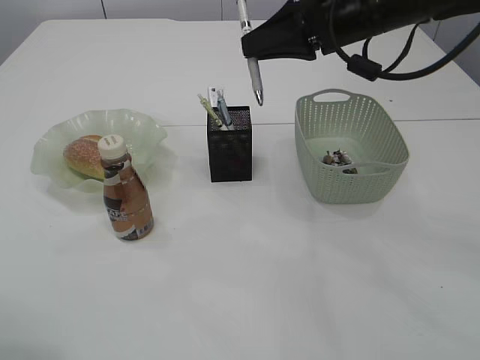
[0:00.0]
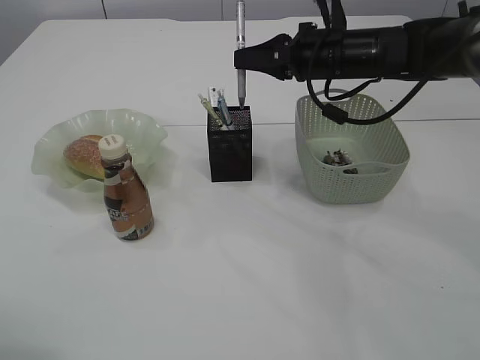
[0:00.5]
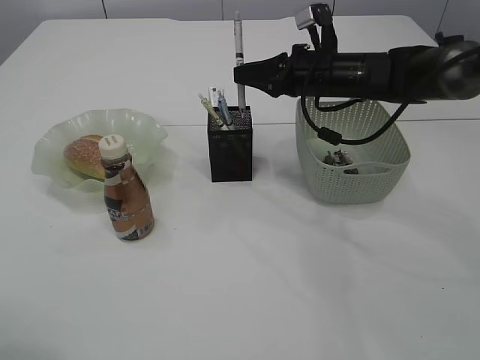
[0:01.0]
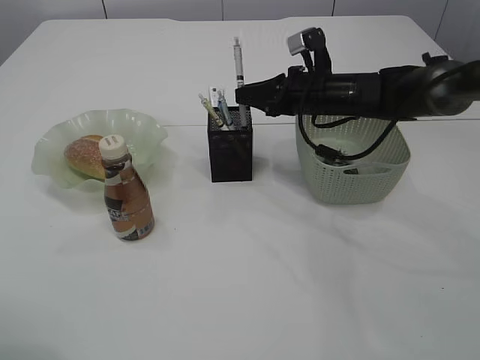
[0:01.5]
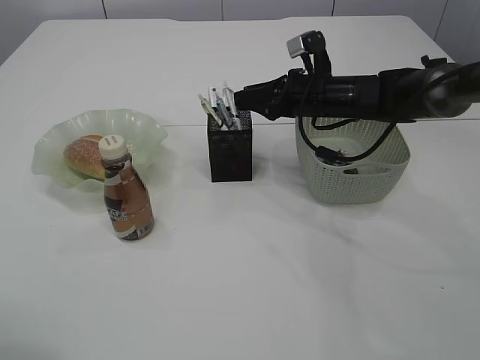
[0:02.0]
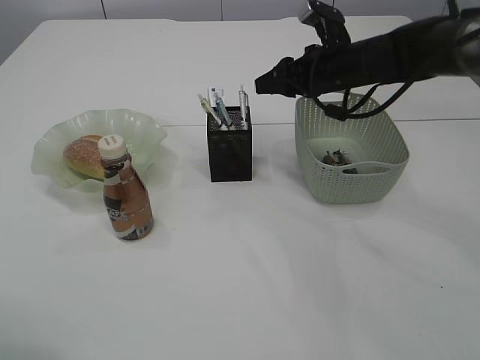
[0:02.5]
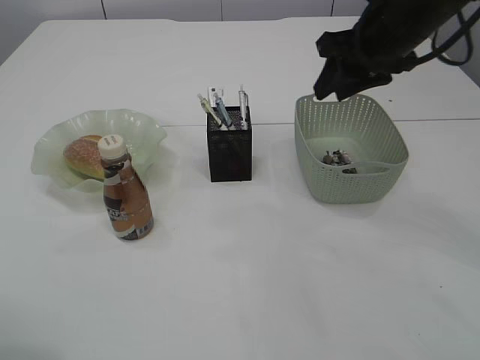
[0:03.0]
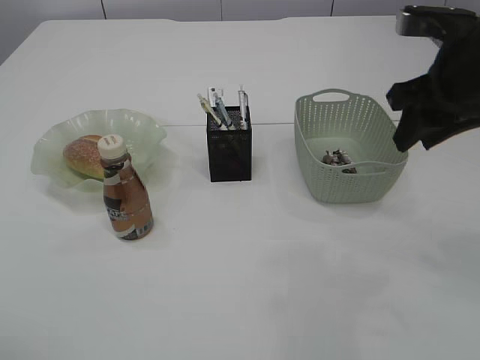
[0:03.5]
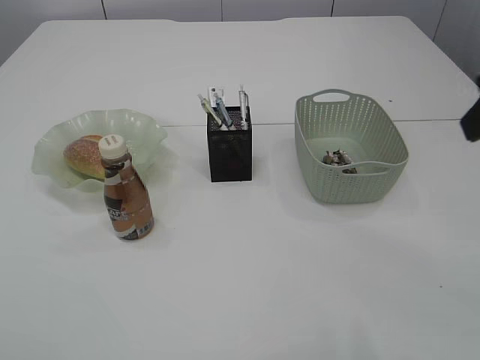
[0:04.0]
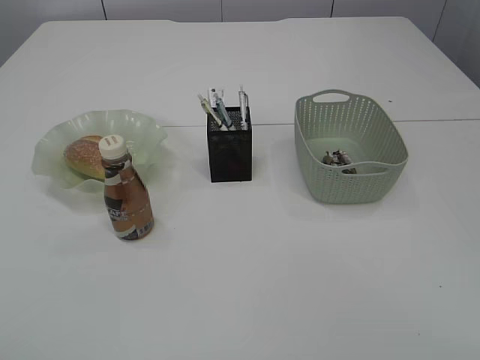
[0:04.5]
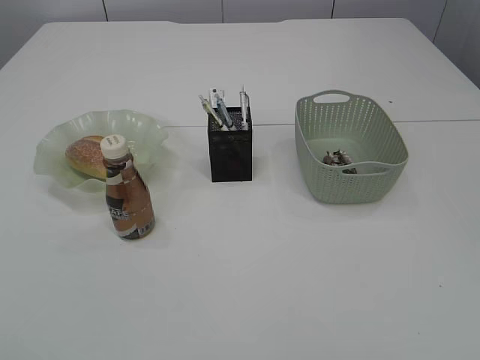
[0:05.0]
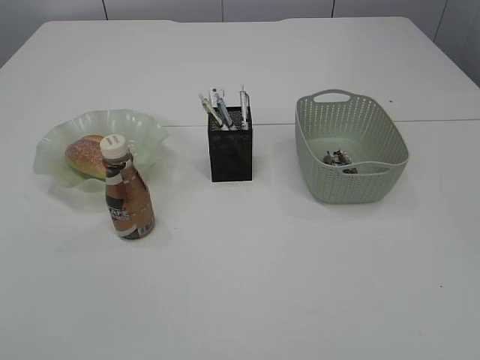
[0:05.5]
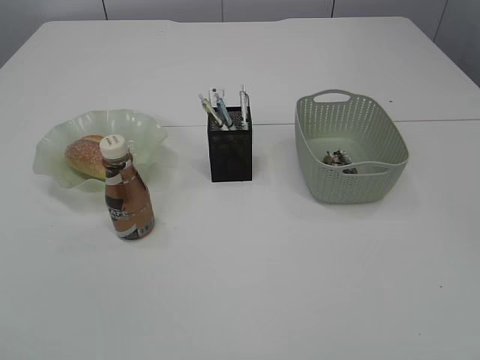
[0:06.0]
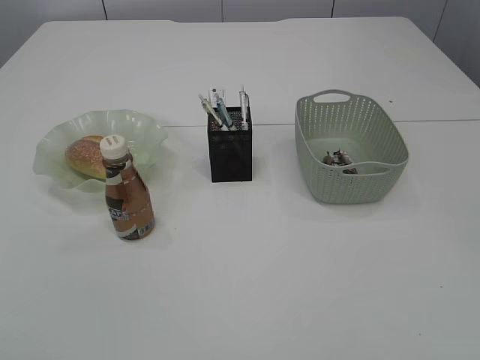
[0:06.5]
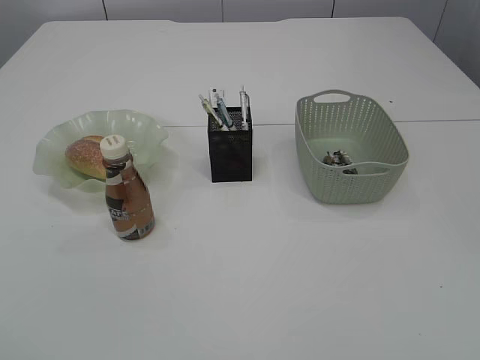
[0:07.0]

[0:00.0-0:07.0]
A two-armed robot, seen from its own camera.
Step, 0.0 to 2.0 s: Place the pen into the pen holder.
0.0 to 2.0 s: The right gripper heads downward and forward, covering about 15 cm, and opens up.
2.0 to 3.5 s: The right gripper heads backward, upward and to the right, covering approximately 20 cm.
3.5 to 5.0 s: The left gripper goes some 25 cm backward; the right gripper travels backward by about 40 cm.

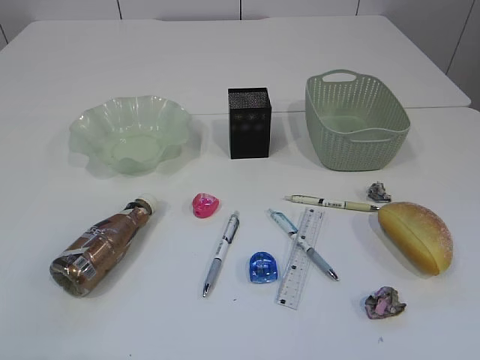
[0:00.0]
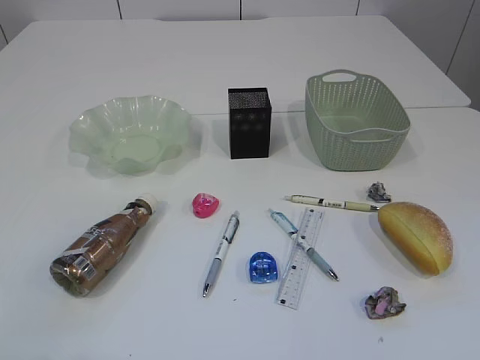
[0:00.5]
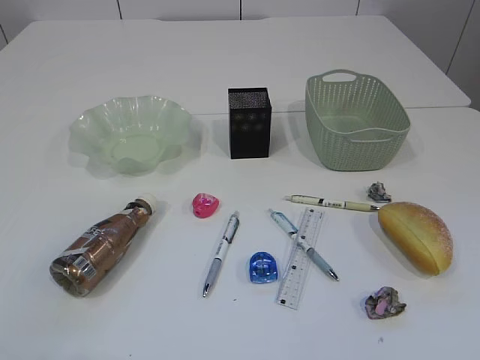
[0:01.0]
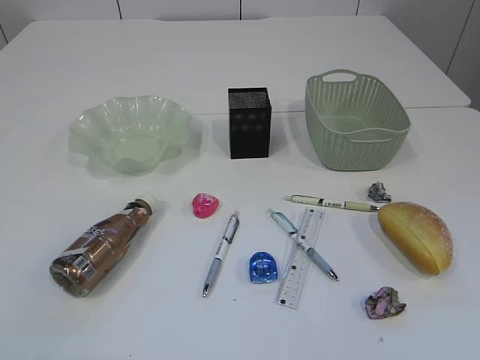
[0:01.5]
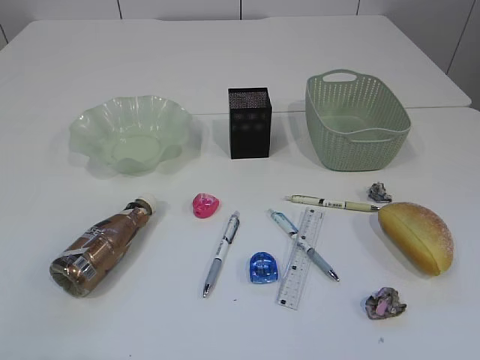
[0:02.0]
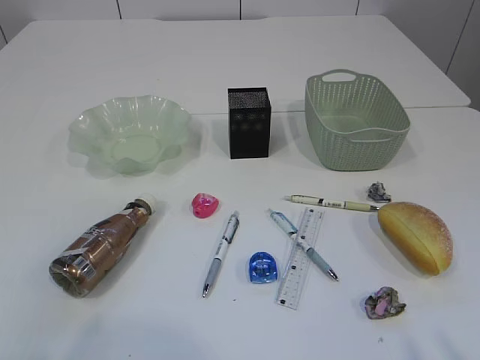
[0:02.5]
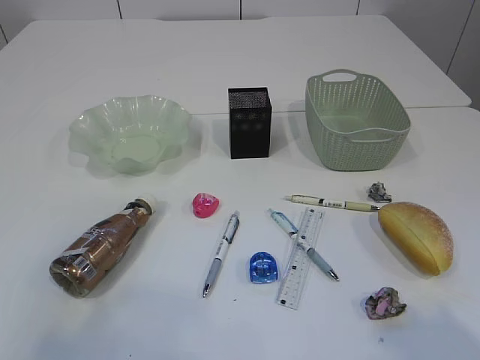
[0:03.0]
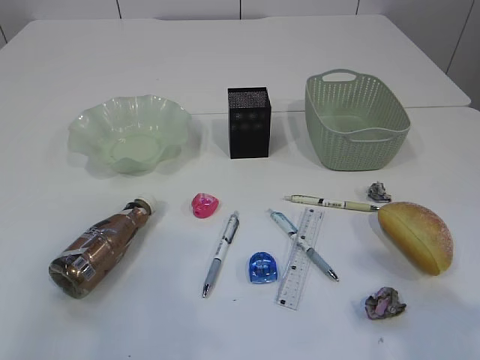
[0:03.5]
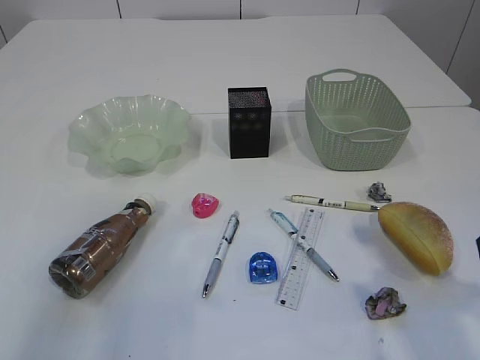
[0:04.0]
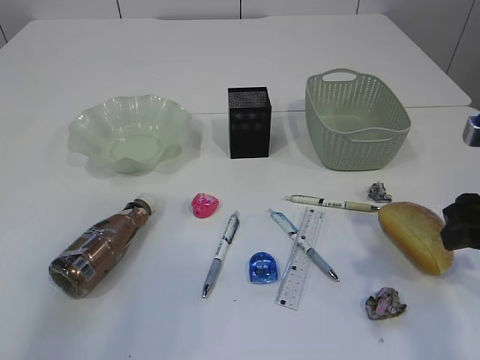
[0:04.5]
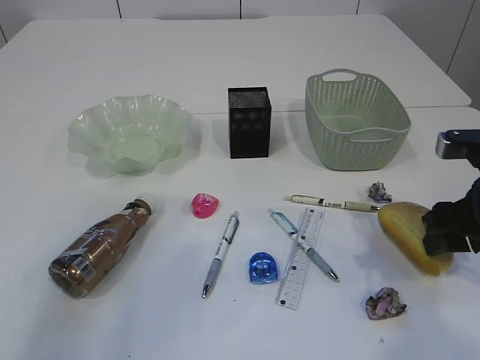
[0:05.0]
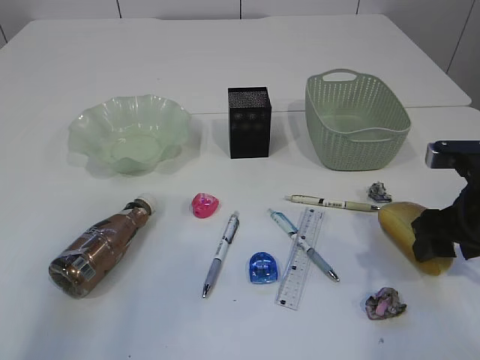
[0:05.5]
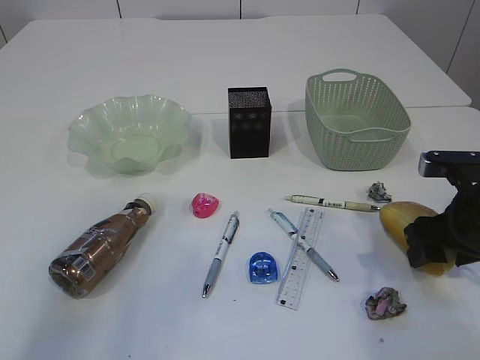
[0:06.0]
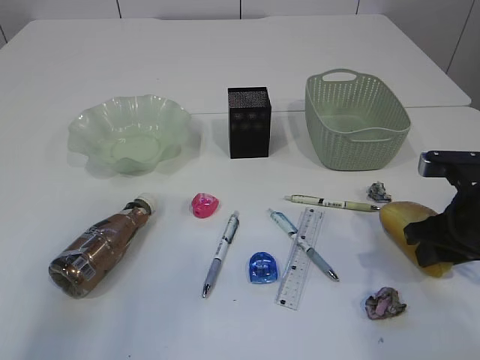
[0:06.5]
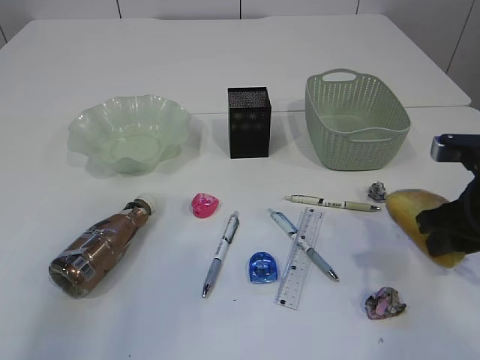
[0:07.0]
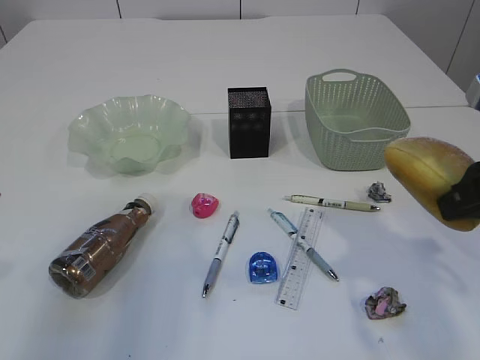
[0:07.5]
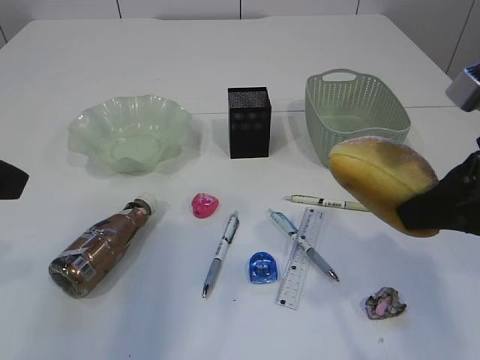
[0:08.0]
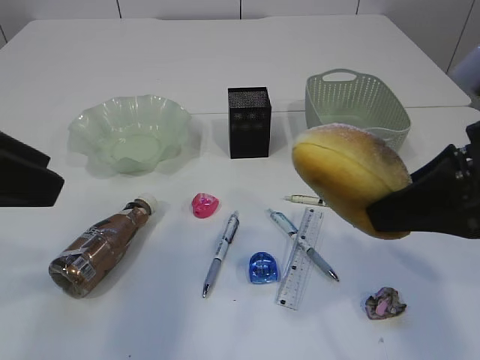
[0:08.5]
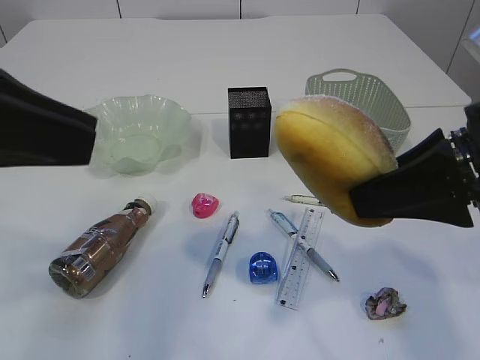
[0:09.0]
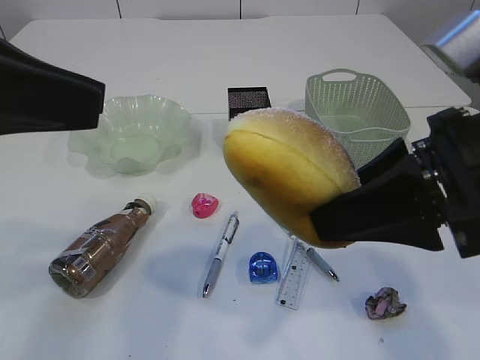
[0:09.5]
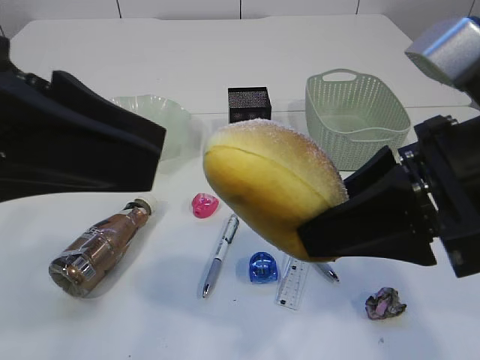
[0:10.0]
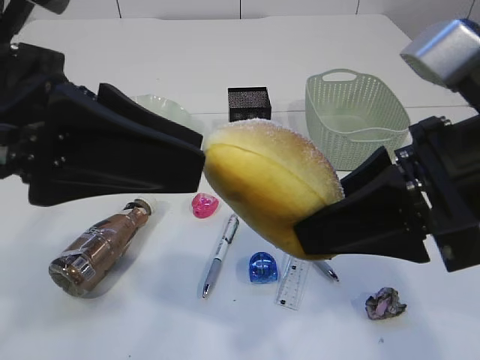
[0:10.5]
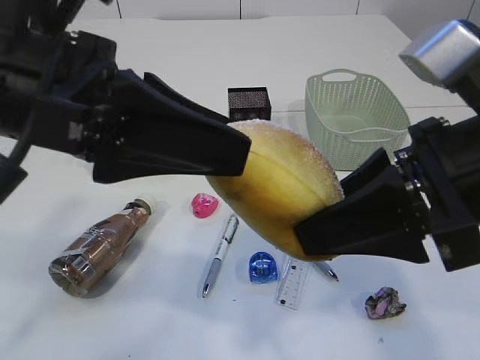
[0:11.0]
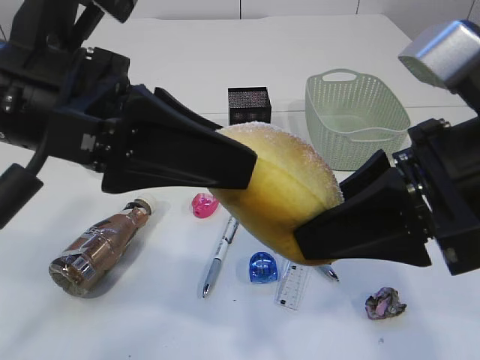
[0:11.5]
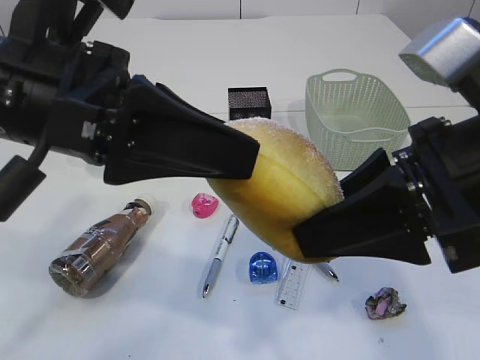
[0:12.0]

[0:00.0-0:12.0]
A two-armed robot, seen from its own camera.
2.0 to 4.0 s: The two grippers go about 20 cm forward. The right gripper opens.
4.0 to 6.0 s: The right gripper travels downward and forward by some 15 cm.
6.0 to 8.0 s: The right gripper shifts roughly 15 cm upward and backward, and closes its fingers.
8.0 to 10.0 s: The right gripper is displaced to the left by some 5 cm, while the left gripper moves to the right, some 10 cm.
10.0 to 12.0 s: The left gripper moves about 5 cm.

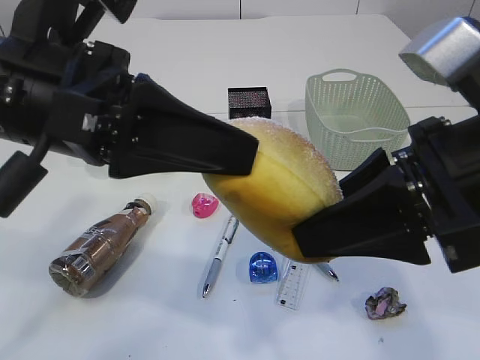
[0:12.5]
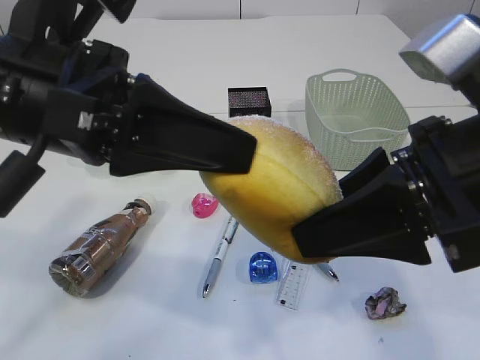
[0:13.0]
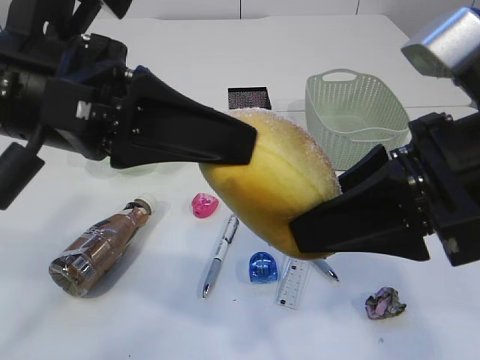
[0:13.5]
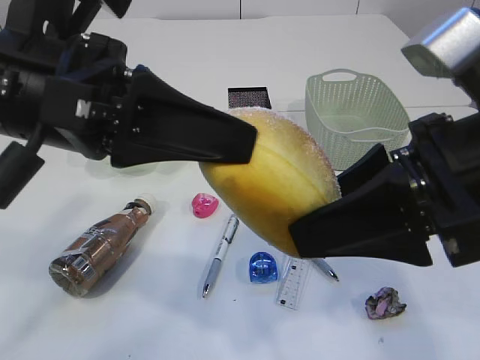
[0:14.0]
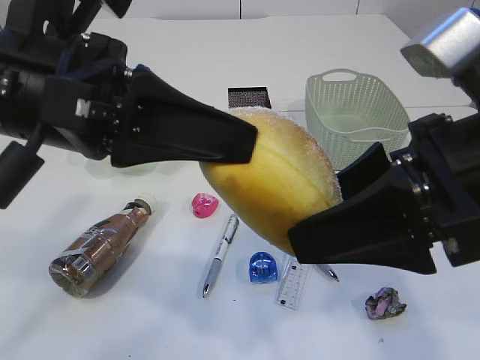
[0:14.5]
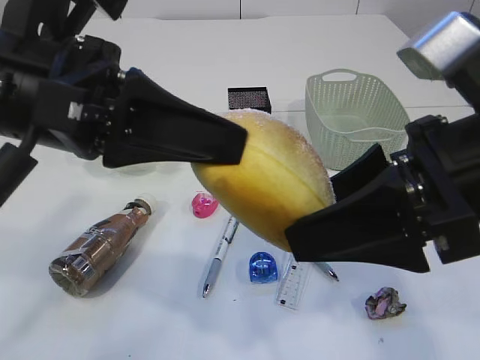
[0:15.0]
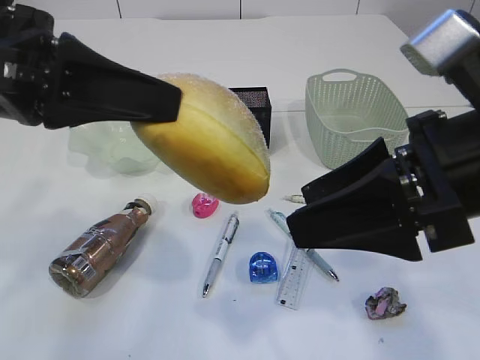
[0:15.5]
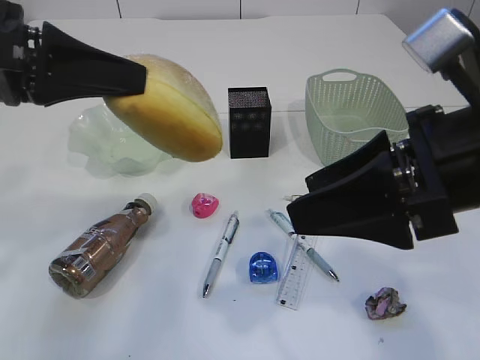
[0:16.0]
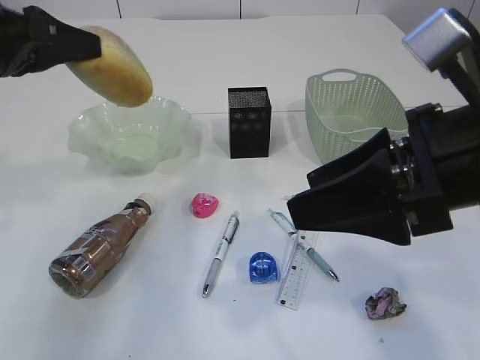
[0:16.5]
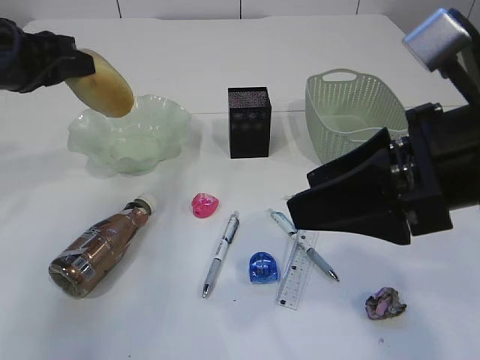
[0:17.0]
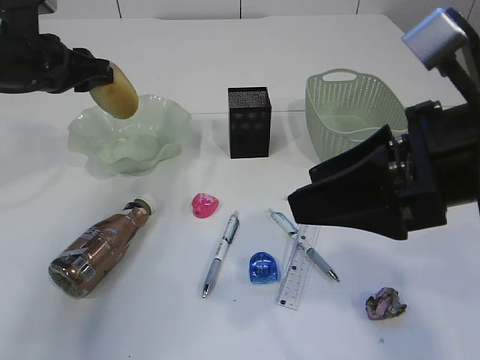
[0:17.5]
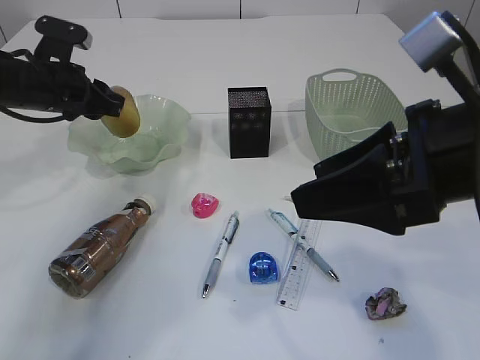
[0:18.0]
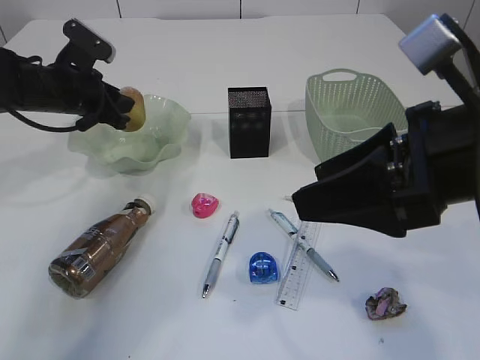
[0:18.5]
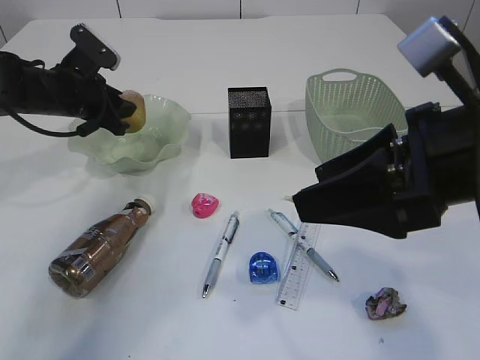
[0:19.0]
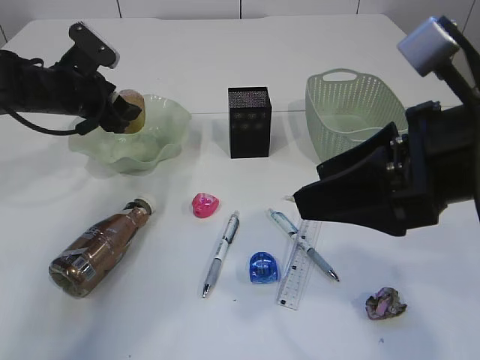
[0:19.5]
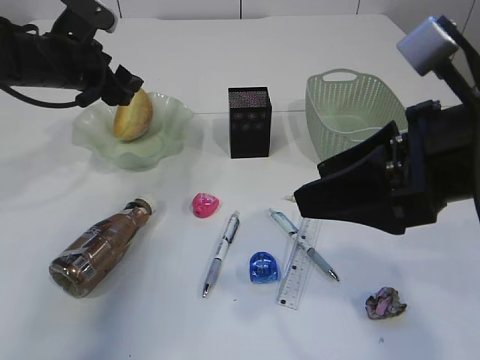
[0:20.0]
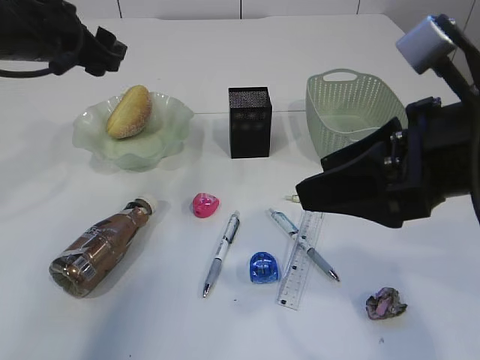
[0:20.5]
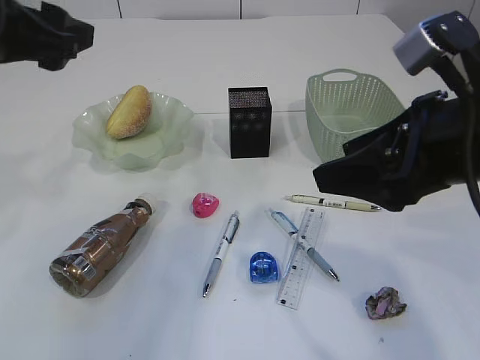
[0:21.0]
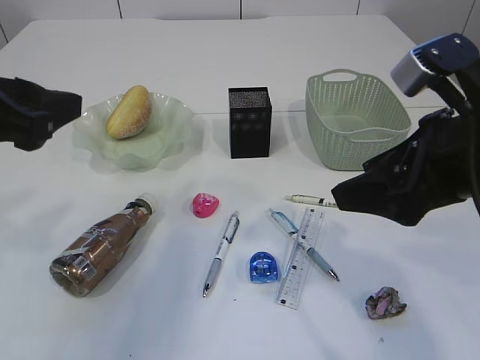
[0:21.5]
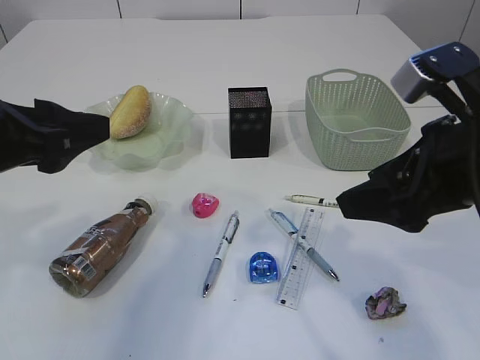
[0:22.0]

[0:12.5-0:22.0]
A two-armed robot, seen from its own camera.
Step, 12.5 to 15.5 s: Hand over the bread.
Step, 16.0 to 20.5 s: place the bread in the plate.
12.5 to 14.5 s: The right gripper opens up.
14.5 to 16.5 s: The left gripper shifts about 15 cm to the left and forward.
16.5 to 18.0 s: The left gripper shifts about 20 cm forward and downward.
18.0 to 20.0 s: The left gripper opens its fingers.
20.0 to 22.0 s: The left gripper moves backward, some 20 cm.
